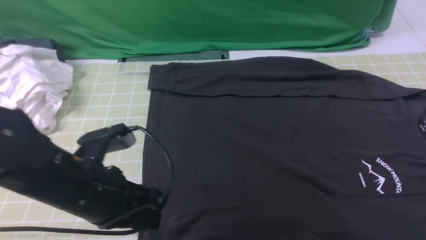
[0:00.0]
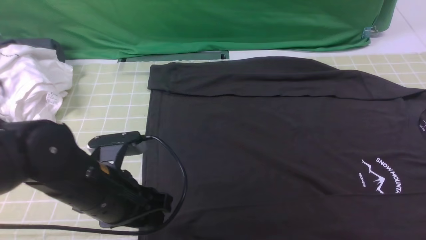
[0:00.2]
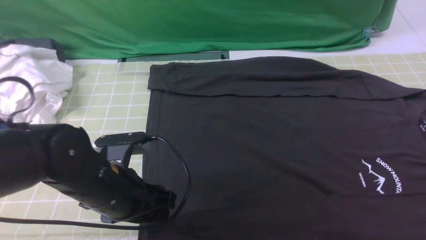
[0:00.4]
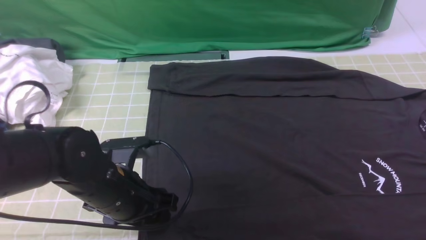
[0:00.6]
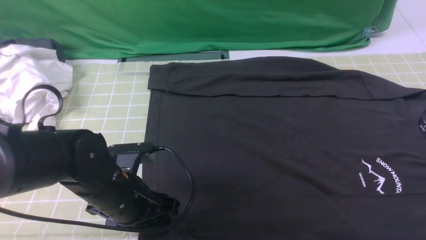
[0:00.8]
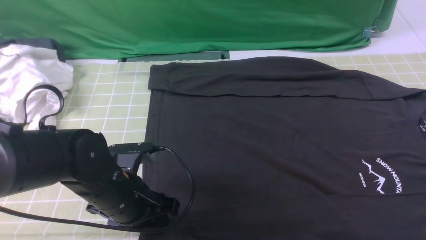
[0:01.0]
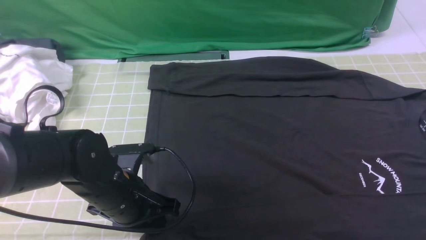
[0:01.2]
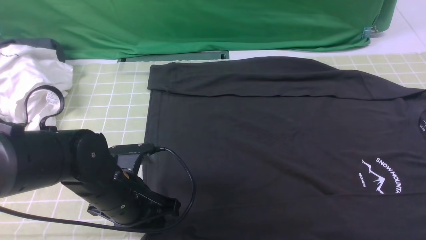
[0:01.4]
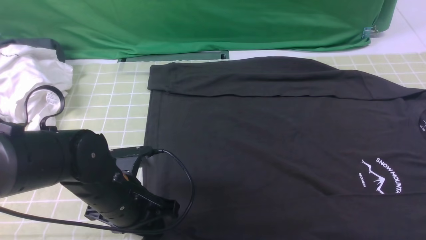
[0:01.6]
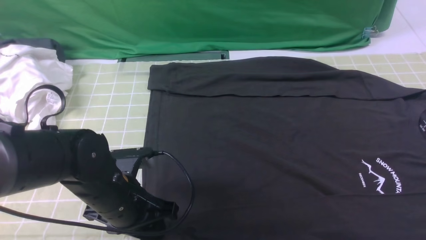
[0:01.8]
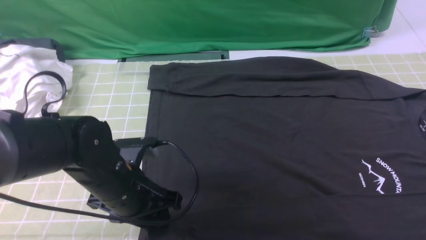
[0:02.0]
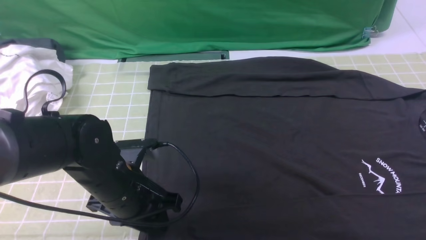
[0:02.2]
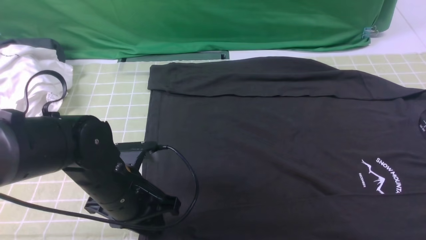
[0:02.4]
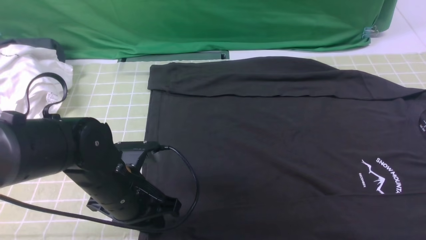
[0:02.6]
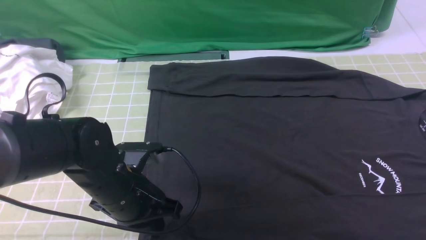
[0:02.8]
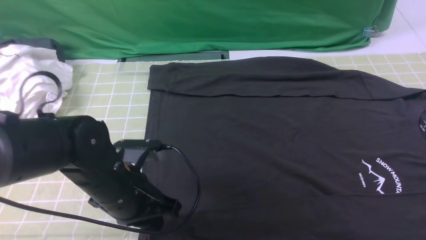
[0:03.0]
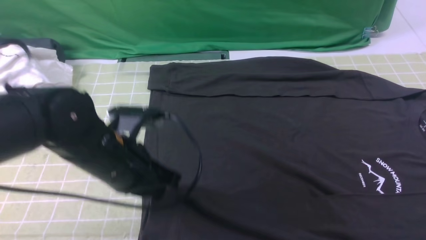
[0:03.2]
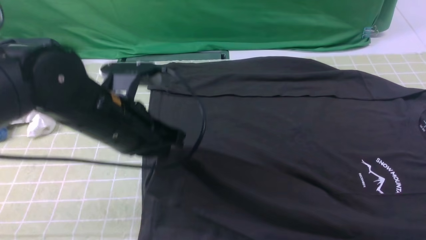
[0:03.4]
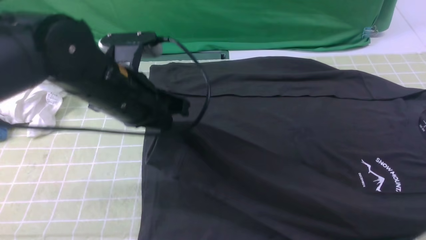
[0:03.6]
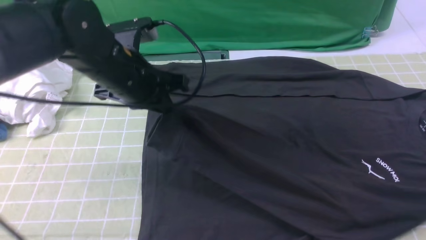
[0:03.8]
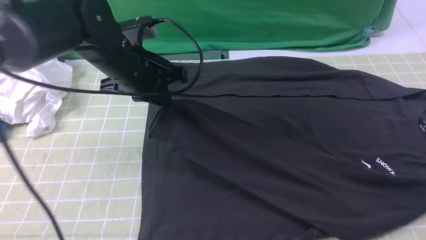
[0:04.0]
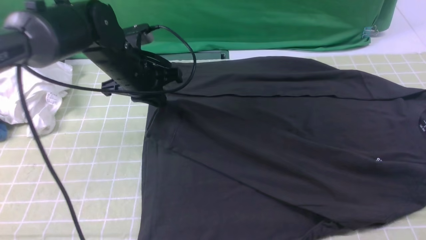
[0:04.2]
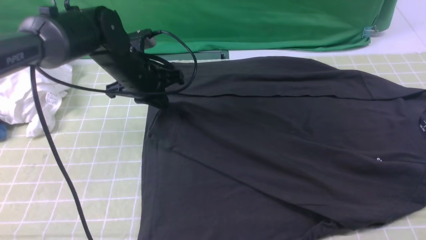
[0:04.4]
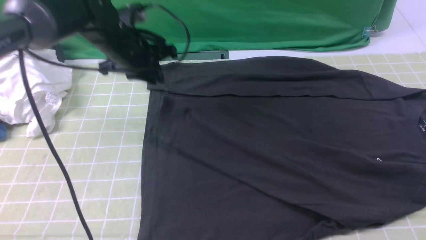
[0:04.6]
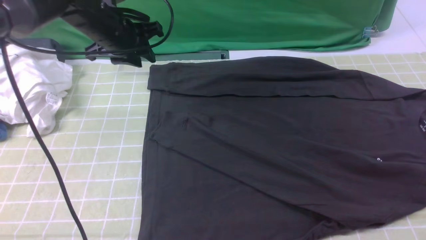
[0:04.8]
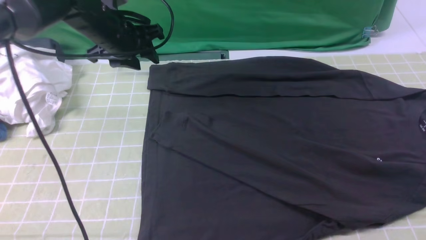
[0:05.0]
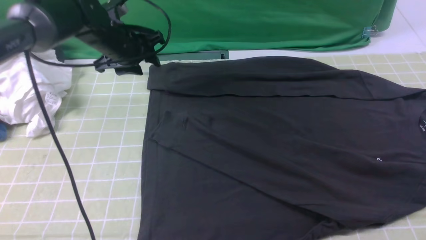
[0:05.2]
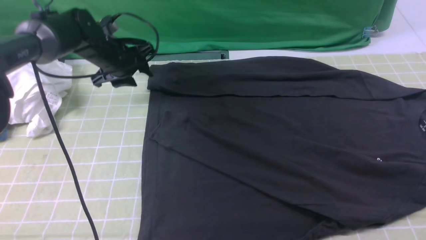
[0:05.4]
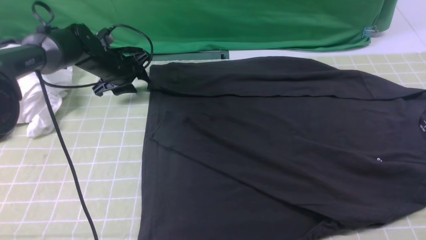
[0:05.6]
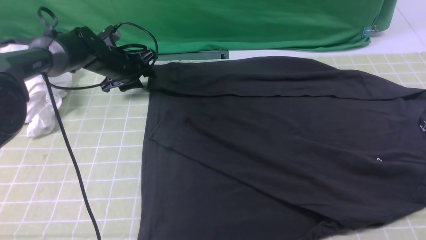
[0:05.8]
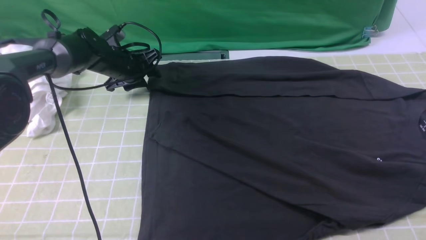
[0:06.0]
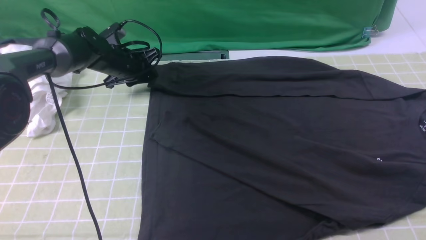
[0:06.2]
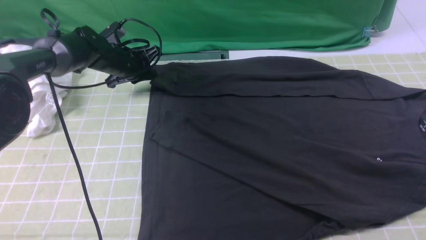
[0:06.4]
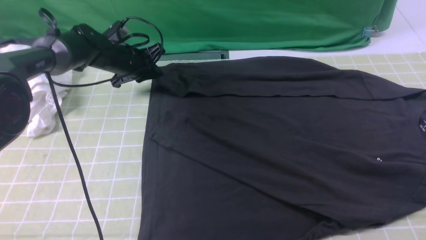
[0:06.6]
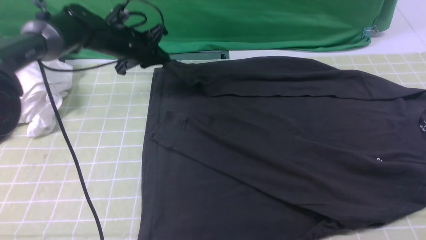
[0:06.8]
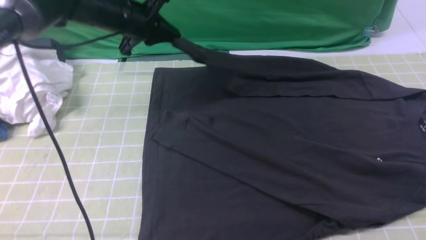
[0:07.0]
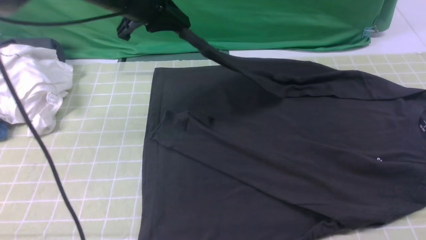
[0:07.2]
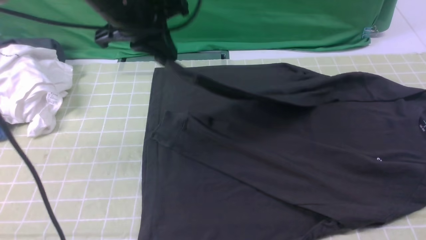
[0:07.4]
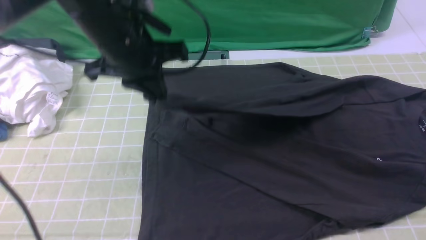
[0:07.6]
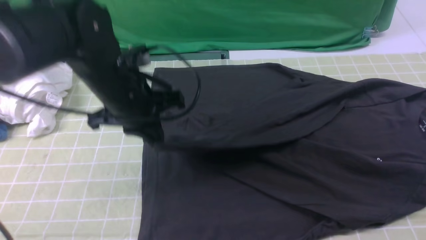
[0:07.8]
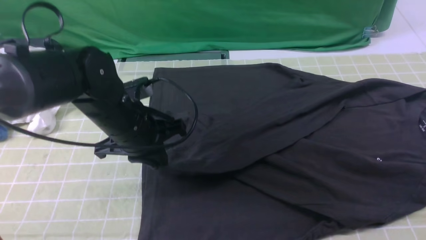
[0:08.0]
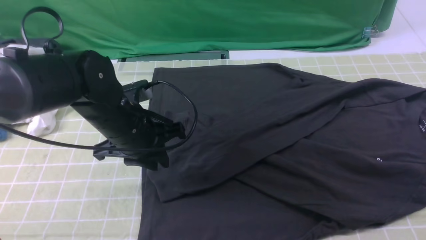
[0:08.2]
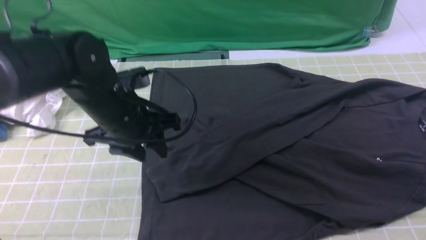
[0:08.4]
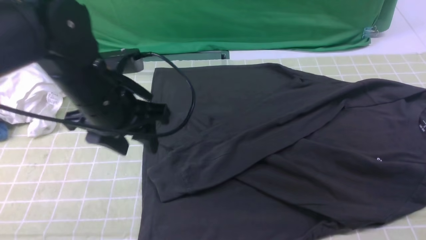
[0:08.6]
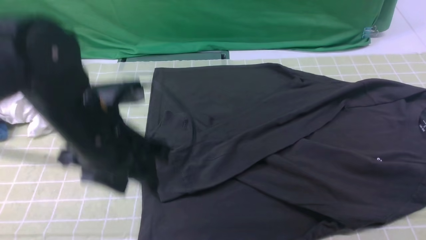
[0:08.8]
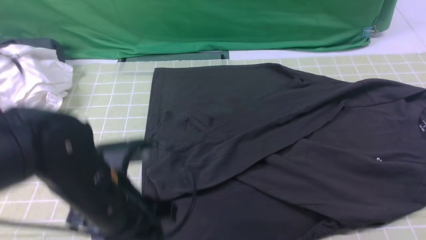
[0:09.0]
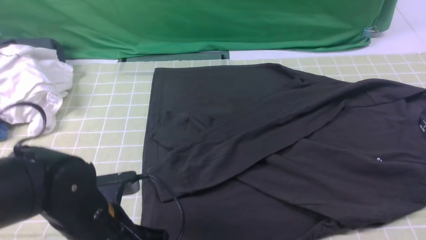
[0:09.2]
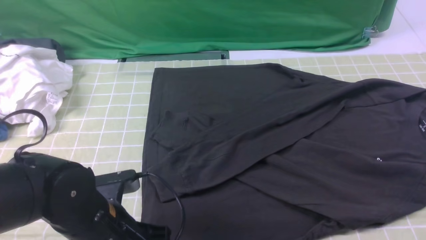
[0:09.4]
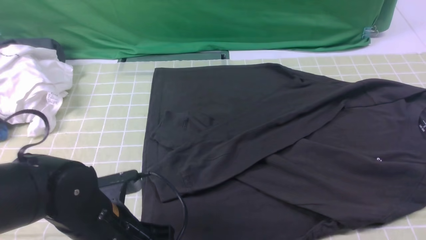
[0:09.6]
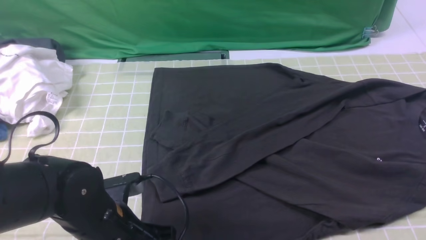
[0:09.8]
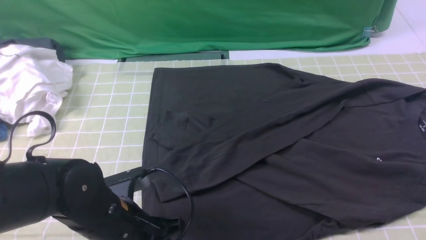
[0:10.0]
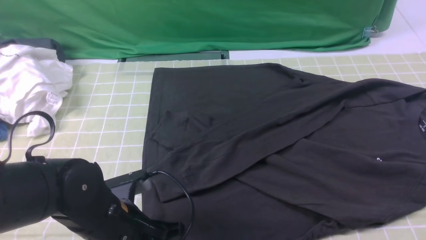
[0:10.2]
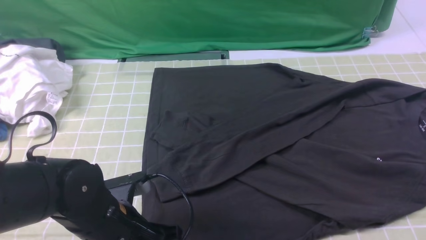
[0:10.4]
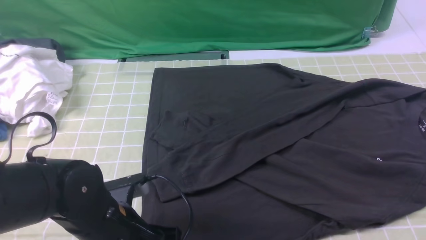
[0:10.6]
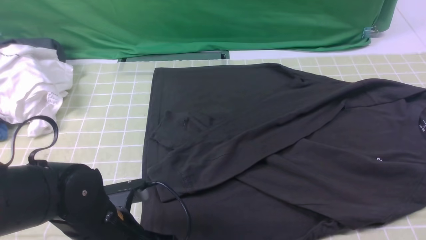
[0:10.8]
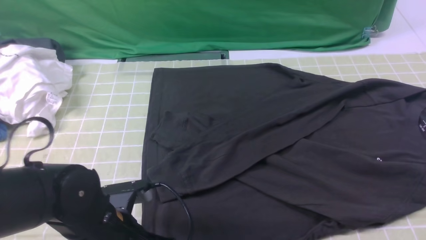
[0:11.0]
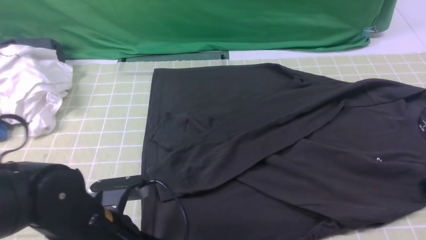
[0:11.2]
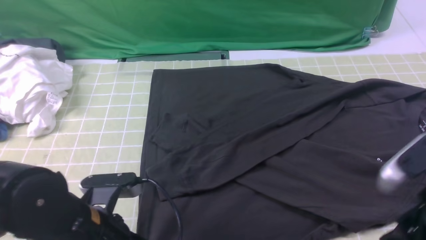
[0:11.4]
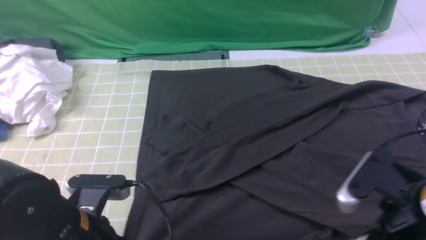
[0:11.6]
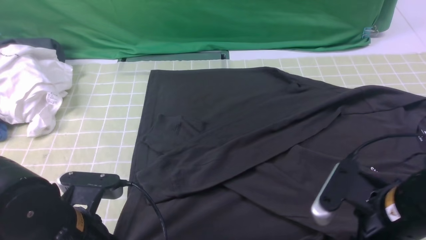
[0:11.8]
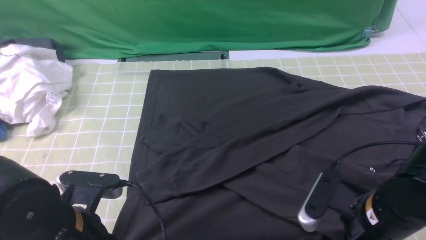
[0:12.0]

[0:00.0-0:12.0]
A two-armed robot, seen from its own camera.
Step, 0:00.0 to 0:02.8: use the left arm to clamp the cuff closest to it.
Step, 0:03.0 to 0:04.6: use the left arm to drag and place the cuff at the centered position on the left edge of the fabric.
Step, 0:04.8 to 0:06.4: use the left arm to clamp the cuff farthest from it.
Step, 0:06.6 to 0:08.2: use the left arm to drag and drop the cuff onto the cuff closest to the left arm.
0:00.0 to 0:01.6: The left gripper goes about 5 cm downward, and opens, then closes again.
0:01.6 to 0:03.0: The left gripper closes.
0:03.0 to 0:04.4: The left gripper goes roughly 20 cm forward.
0:04.4 to 0:06.0: The left gripper travels forward, downward and to the left by approximately 15 cm, and opens up.
0:06.0 to 0:07.6: The left gripper is displaced backward, upward and to the right by some 25 cm, and closes.
0:07.6 to 0:09.0: The left gripper travels backward and downward by approximately 15 cm, and opens its fingers.
0:09.0 to 0:10.4: The left gripper heads downward, covering roughly 5 cm.
0:10.4 to 0:12.0: The left gripper moves some 5 cm, and closes up, while the right gripper moves downward and to the left, approximately 20 cm, and opens.

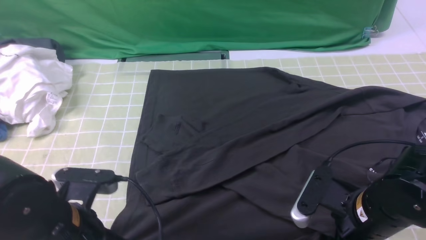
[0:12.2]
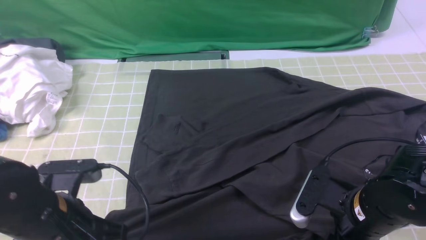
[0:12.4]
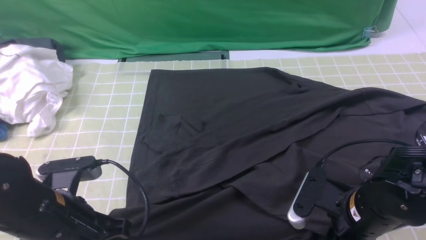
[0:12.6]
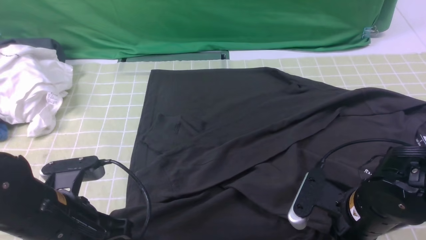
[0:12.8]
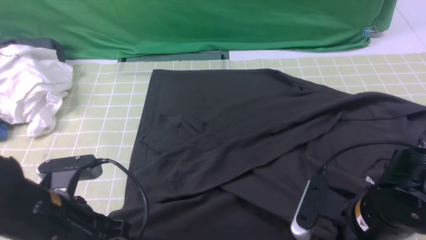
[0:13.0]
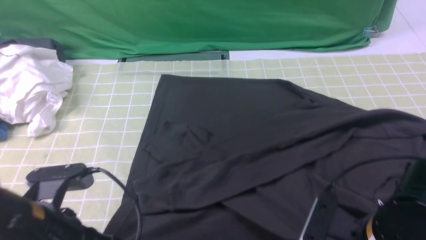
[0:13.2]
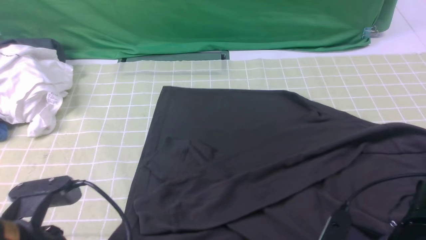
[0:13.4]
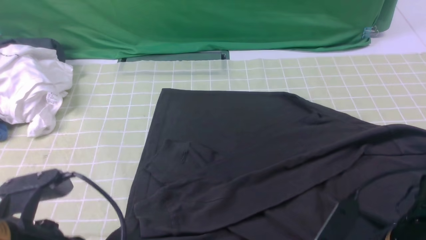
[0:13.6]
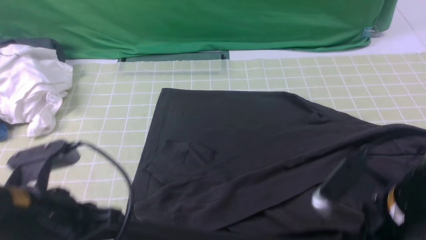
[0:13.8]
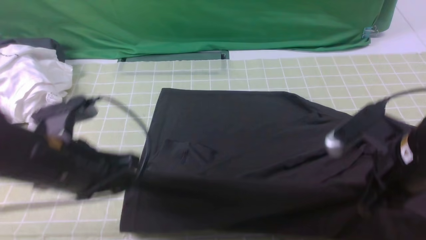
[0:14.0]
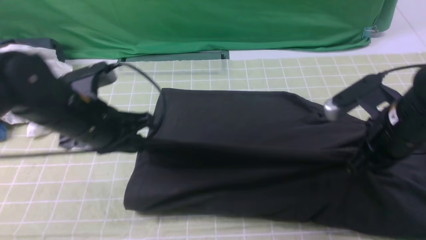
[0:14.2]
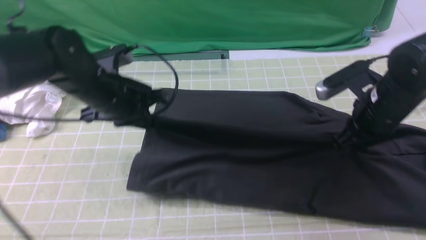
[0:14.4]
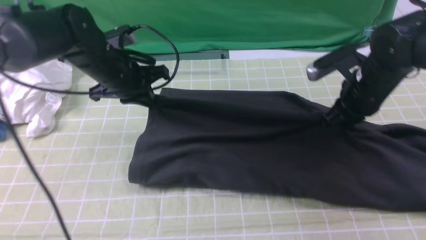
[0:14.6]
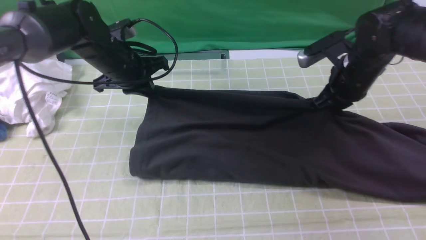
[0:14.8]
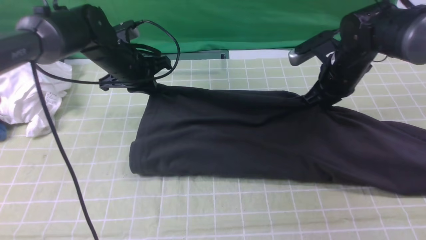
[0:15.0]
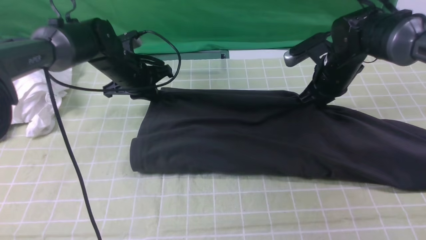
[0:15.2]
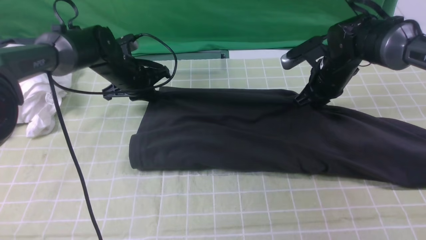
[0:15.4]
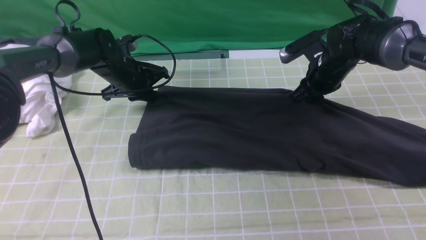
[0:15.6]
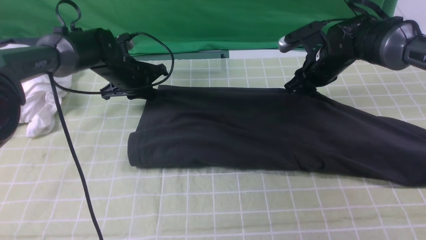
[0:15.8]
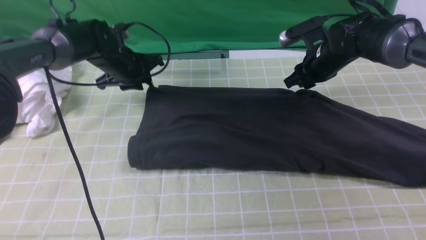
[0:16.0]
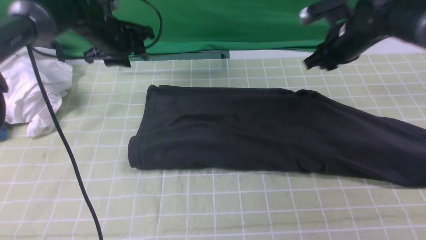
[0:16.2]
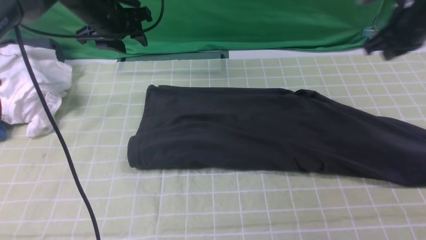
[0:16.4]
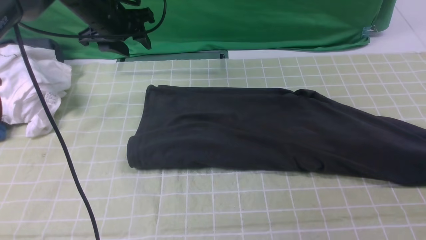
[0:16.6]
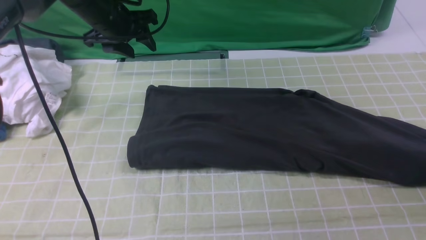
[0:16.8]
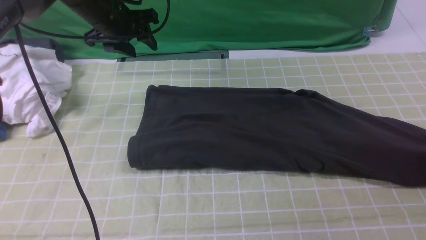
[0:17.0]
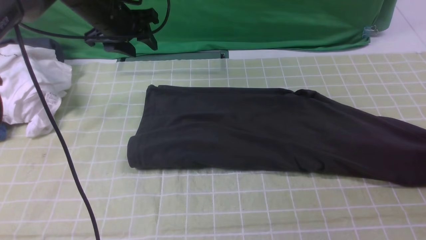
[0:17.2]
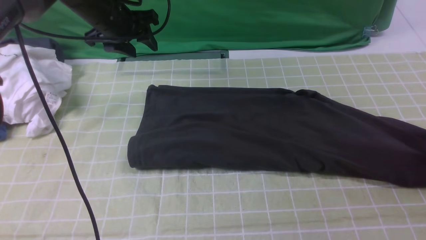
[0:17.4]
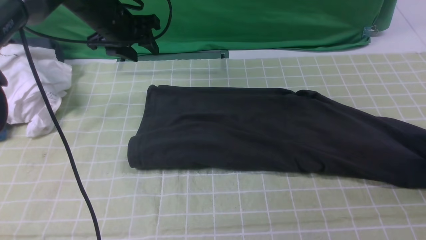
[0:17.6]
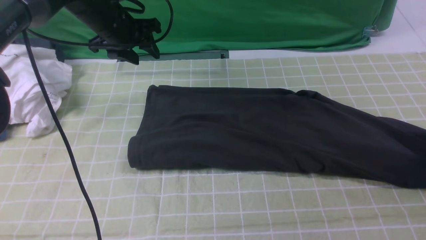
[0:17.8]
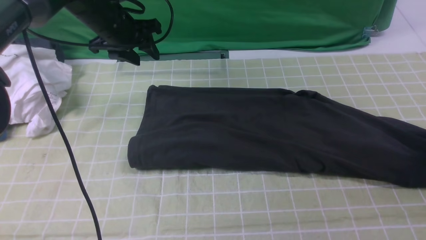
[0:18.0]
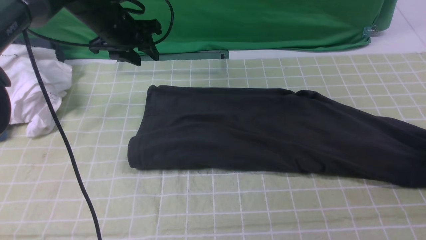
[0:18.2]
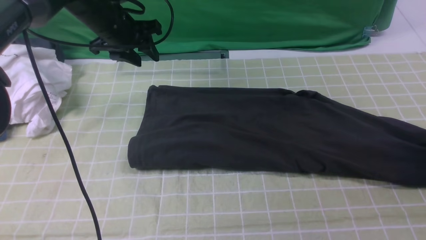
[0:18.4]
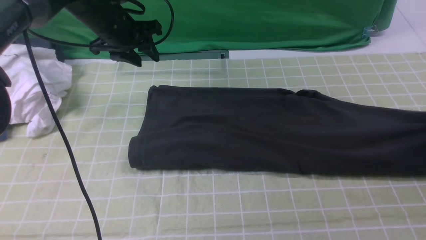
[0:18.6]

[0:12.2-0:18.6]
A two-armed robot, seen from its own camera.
Step, 0:13.0 to 0:16.0: use both arms to drag the lower edge of the fabric forward and fold it over the upper edge.
0:12.2 to 0:13.8: Both grippers move upward, about 5 cm. The right gripper closes its fingers.
0:13.8 to 0:15.4: The two grippers go approximately 30 cm forward.
0:15.4 to 0:17.0: The right gripper travels to the right and backward by approximately 25 cm. Meanwhile the left gripper is displaced upward by some 10 cm, and opens.
0:17.0 to 0:18.6: The right gripper closes its fingers.
